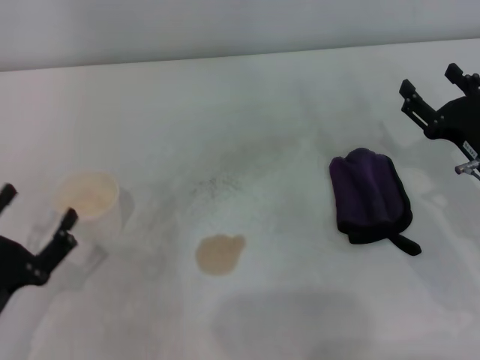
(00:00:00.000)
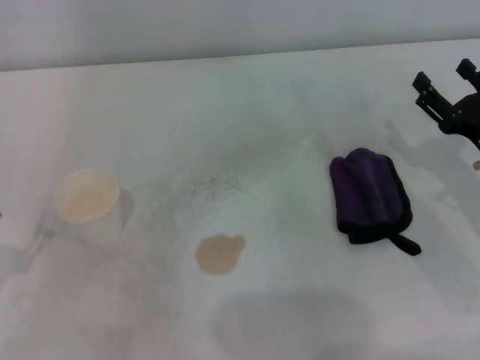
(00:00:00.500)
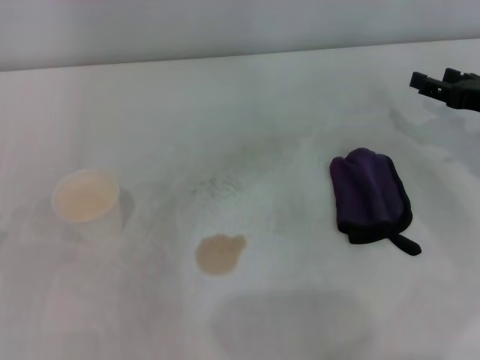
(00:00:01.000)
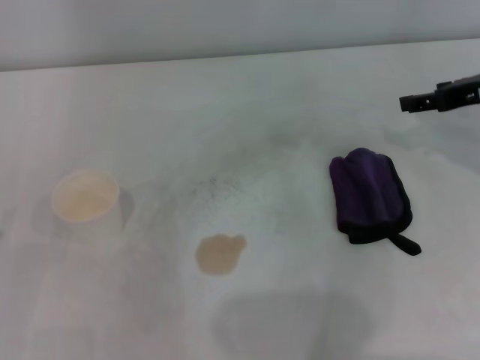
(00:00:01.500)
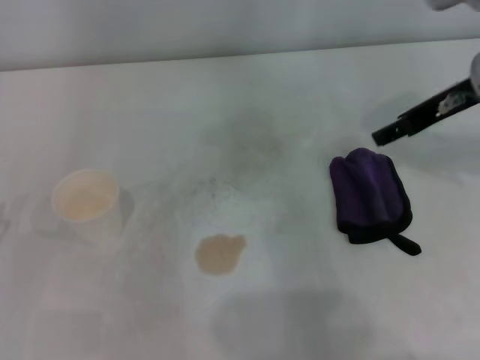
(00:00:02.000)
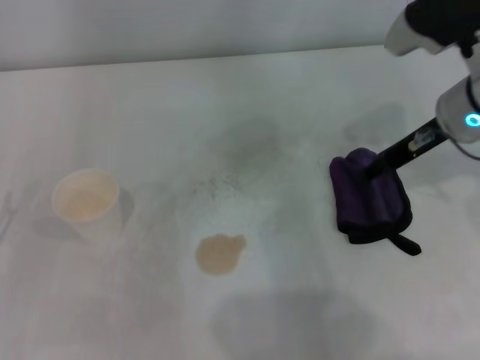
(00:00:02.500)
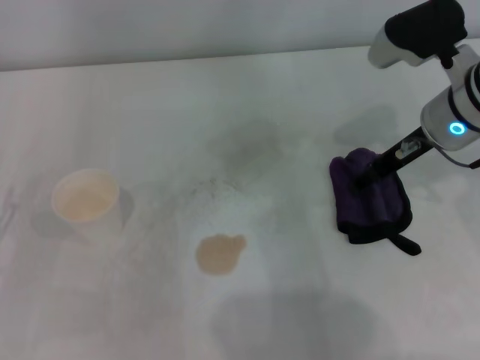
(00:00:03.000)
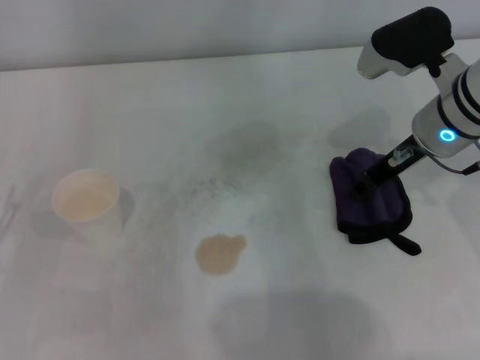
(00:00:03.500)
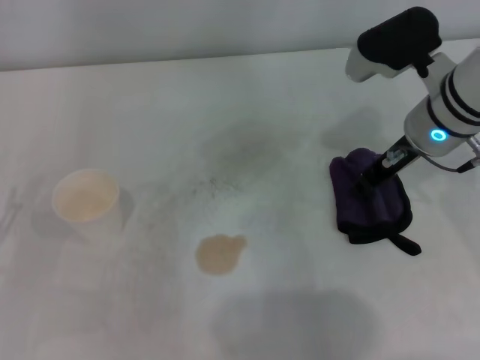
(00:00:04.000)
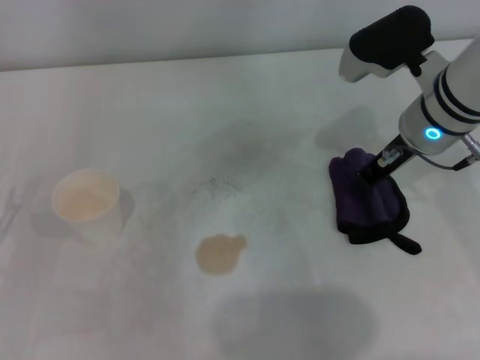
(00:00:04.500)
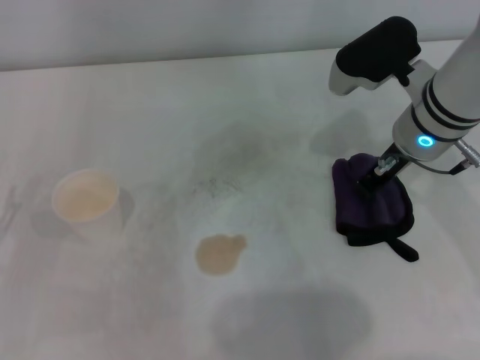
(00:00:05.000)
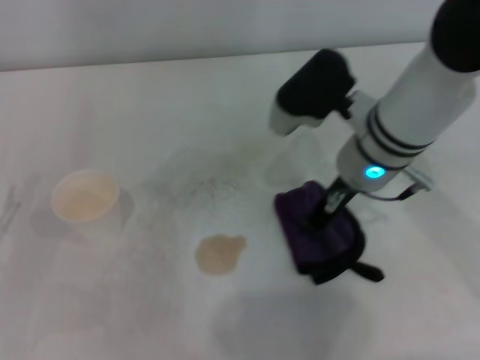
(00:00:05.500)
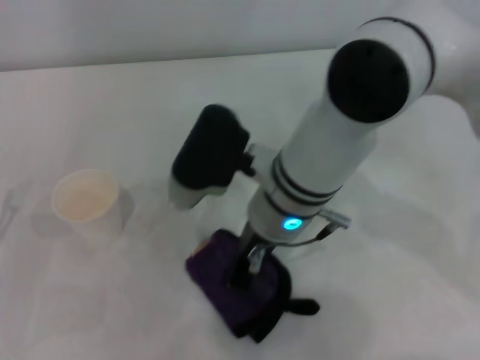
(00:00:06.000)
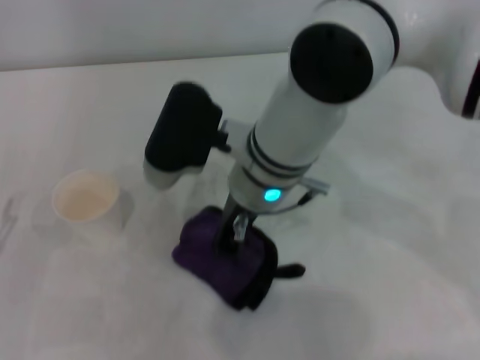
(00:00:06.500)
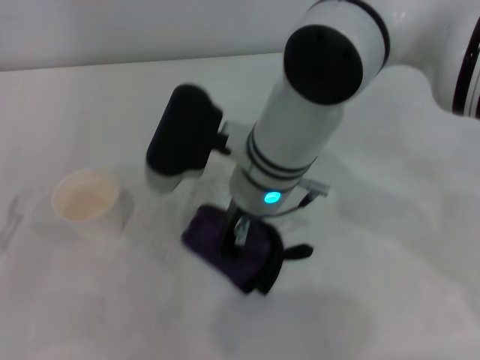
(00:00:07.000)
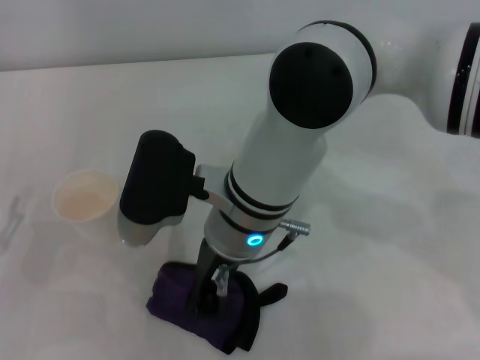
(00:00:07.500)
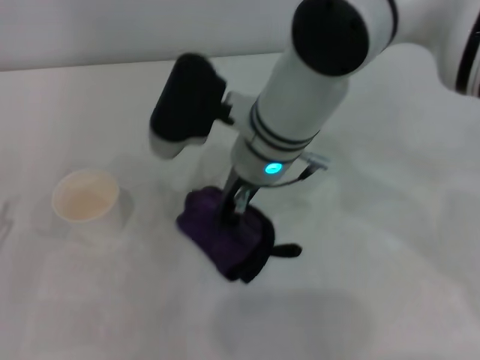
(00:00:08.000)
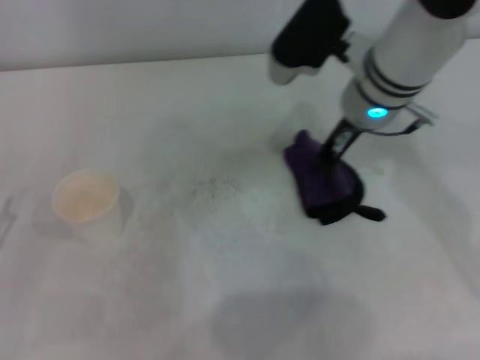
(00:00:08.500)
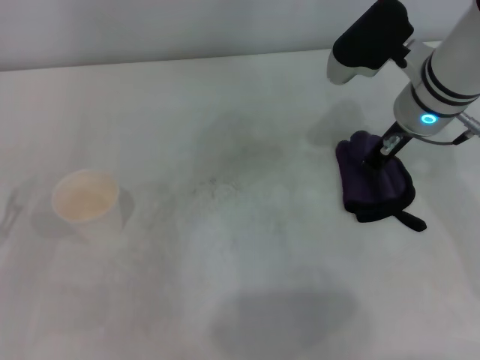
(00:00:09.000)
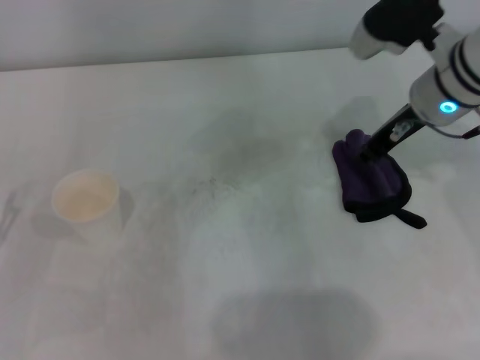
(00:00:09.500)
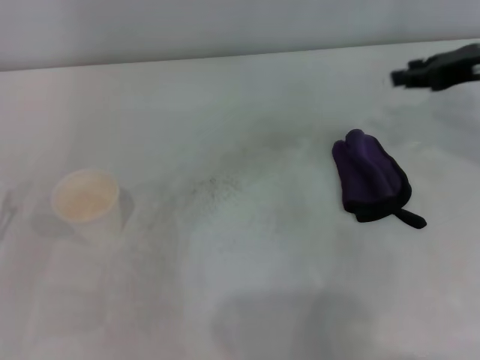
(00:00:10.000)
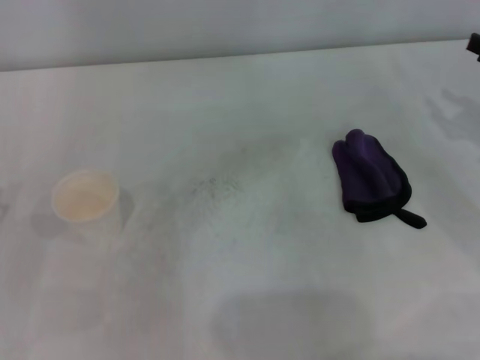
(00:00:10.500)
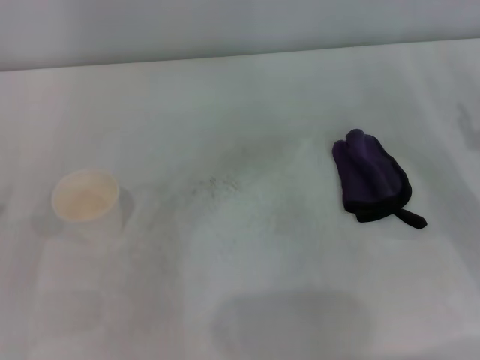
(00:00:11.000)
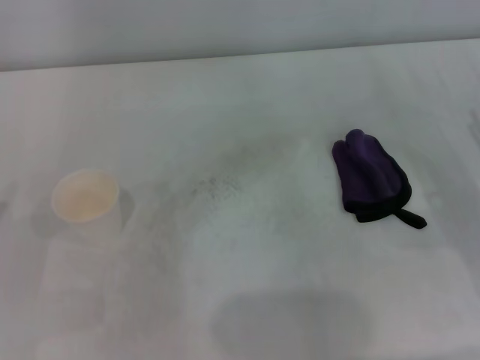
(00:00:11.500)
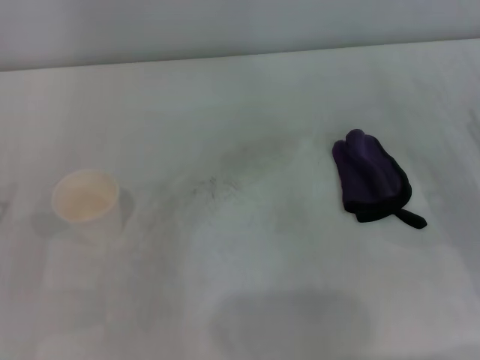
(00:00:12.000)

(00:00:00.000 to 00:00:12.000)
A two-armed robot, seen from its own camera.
Step, 00:00:00.000 - 00:00:05.000: Grasp the rag with the right gripper.
Step, 00:00:05.500 - 00:00:08.000: Wipe the stains off the table with the right gripper.
00:00:00.000 - 00:00:02.000: The right gripper goes some 20 cm upward and forward, while the left gripper shifts some 5 cm to the left.
00:00:02.000 - 00:00:04.000: The right gripper heads downward, covering roughly 5 cm, and closes its fingers.
00:00:04.000 - 00:00:06.000: The right gripper travels to the left by about 15 cm, and closes.
00:00:06.000 - 00:00:08.000: The right gripper moves roughly 5 cm.
00:00:08.000 - 00:00:10.000: The right gripper travels to the right by approximately 30 cm, and opens up.
00:00:10.000 - 00:00:12.000: The right gripper heads downward and backward, covering approximately 15 cm, and opens up.
